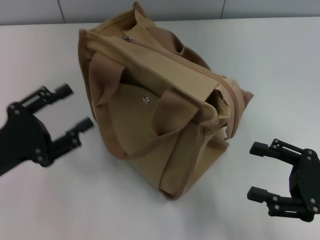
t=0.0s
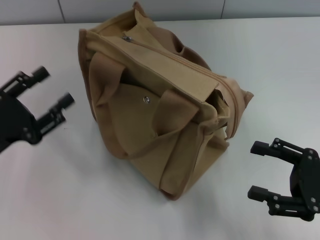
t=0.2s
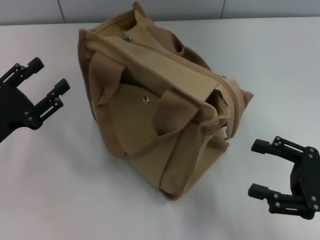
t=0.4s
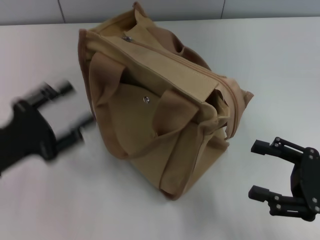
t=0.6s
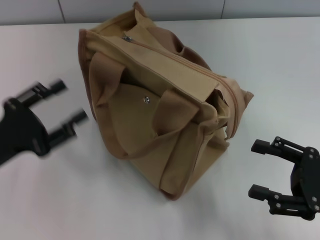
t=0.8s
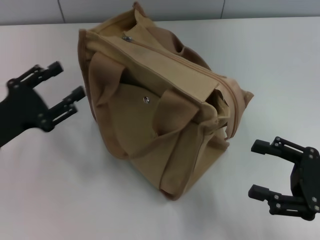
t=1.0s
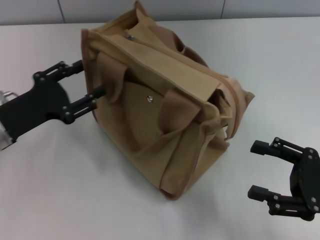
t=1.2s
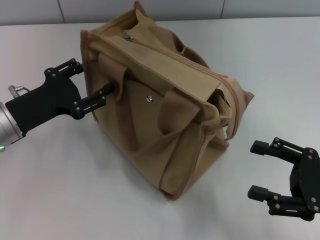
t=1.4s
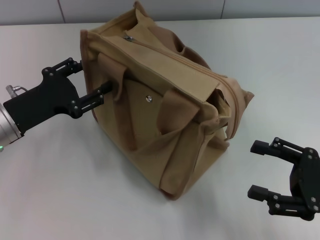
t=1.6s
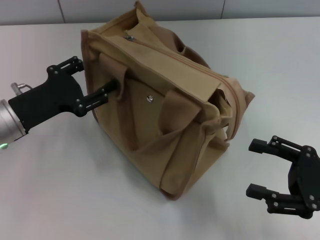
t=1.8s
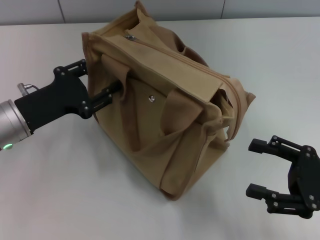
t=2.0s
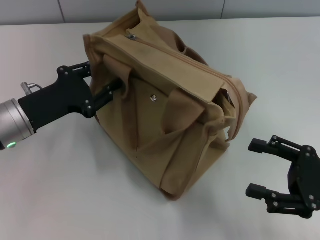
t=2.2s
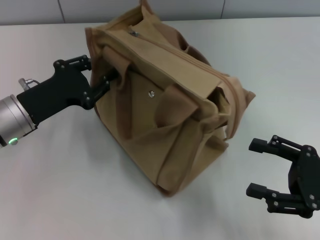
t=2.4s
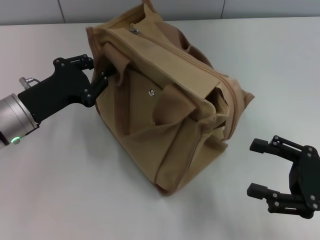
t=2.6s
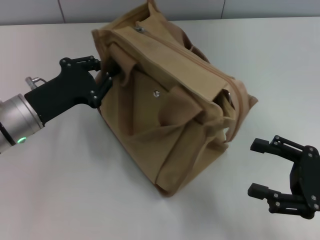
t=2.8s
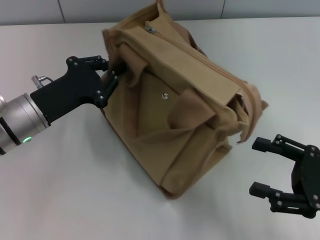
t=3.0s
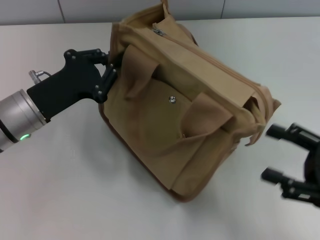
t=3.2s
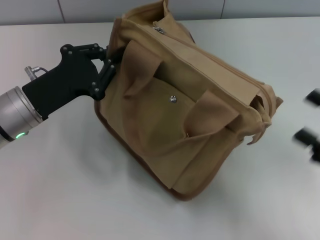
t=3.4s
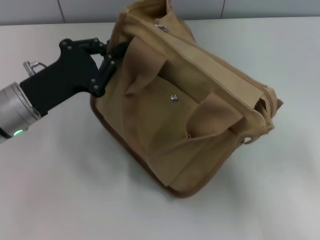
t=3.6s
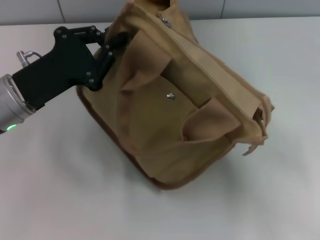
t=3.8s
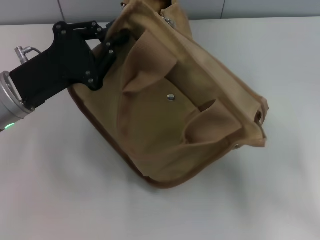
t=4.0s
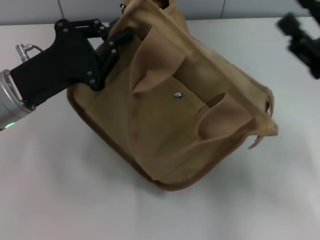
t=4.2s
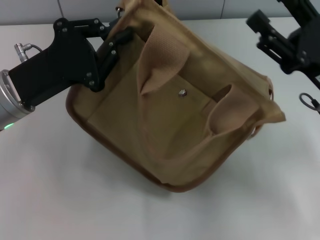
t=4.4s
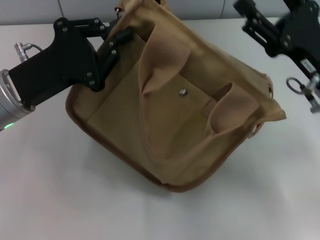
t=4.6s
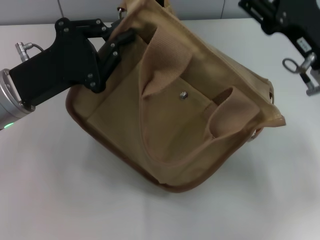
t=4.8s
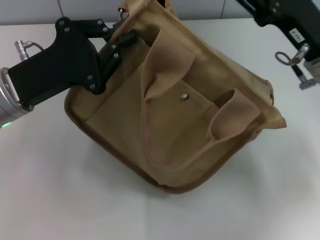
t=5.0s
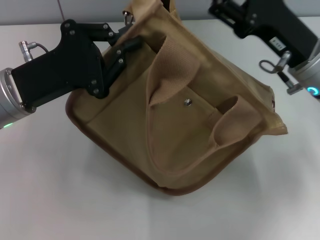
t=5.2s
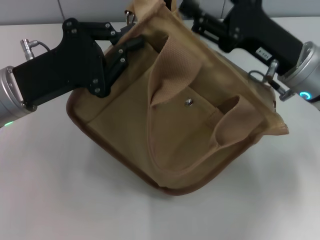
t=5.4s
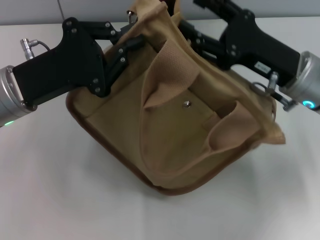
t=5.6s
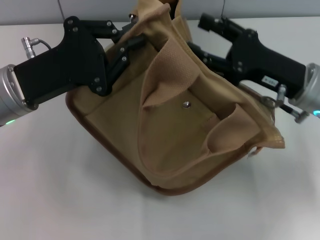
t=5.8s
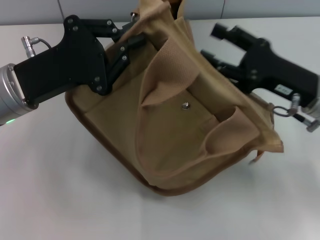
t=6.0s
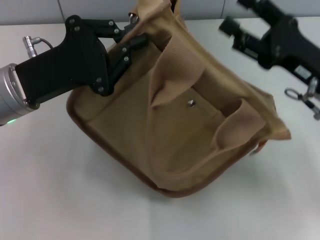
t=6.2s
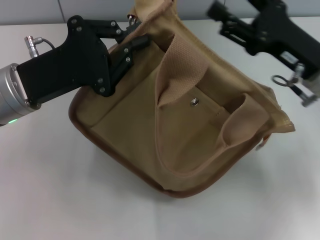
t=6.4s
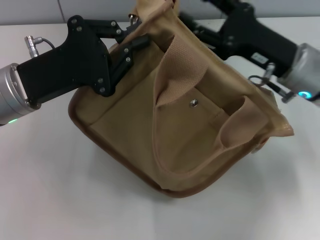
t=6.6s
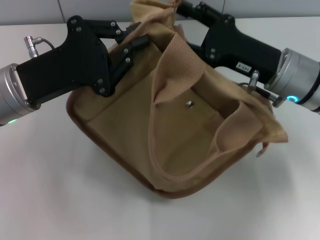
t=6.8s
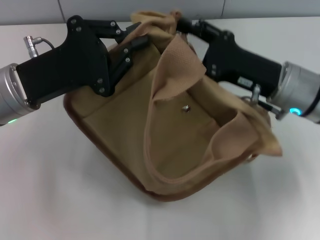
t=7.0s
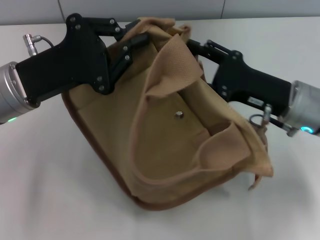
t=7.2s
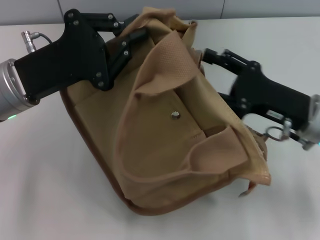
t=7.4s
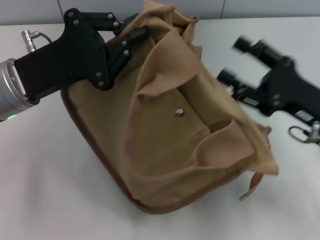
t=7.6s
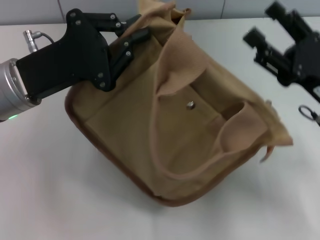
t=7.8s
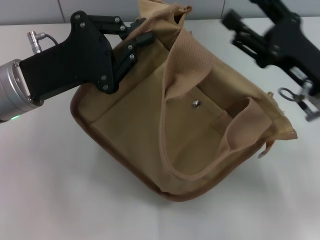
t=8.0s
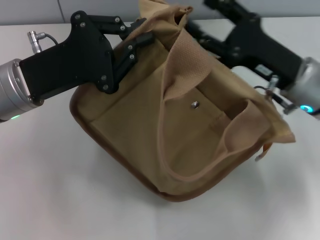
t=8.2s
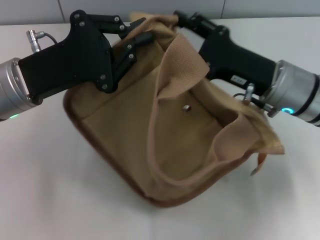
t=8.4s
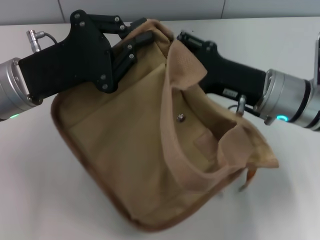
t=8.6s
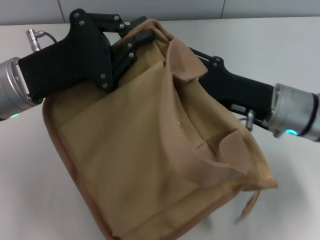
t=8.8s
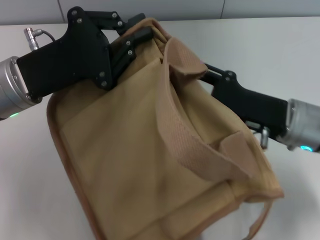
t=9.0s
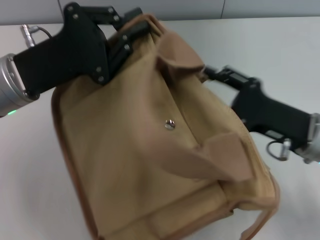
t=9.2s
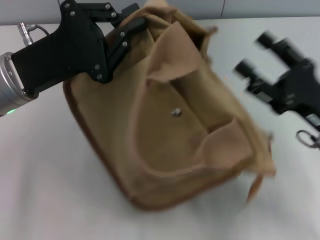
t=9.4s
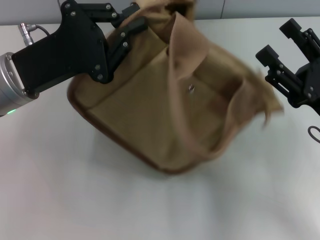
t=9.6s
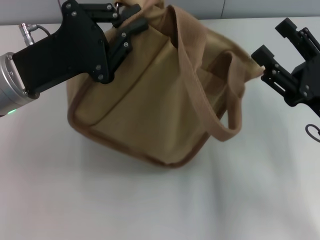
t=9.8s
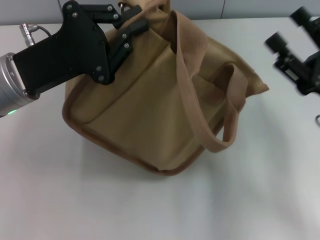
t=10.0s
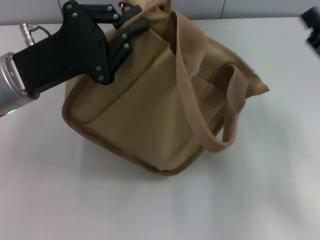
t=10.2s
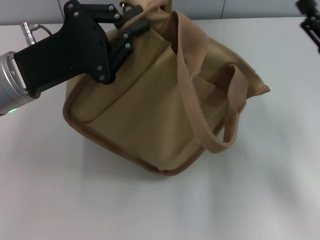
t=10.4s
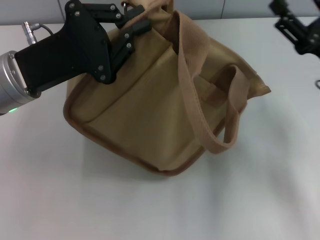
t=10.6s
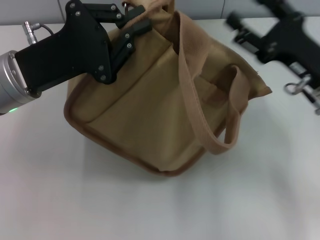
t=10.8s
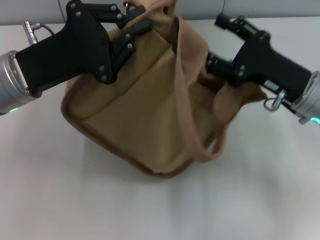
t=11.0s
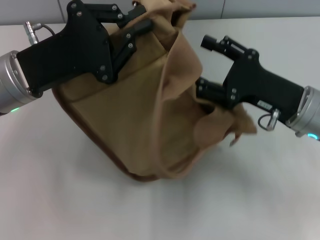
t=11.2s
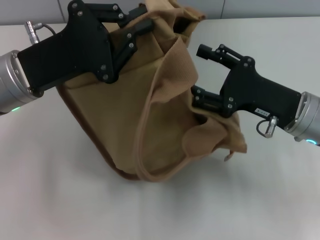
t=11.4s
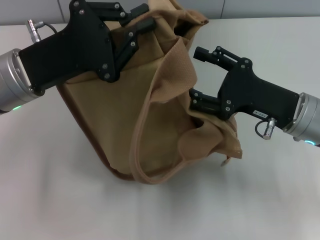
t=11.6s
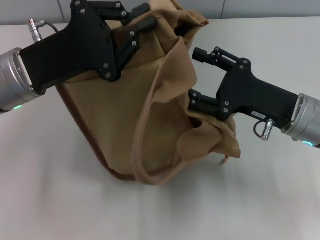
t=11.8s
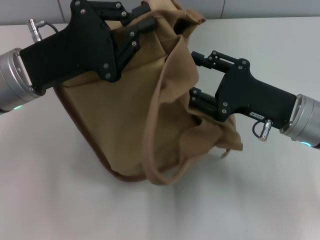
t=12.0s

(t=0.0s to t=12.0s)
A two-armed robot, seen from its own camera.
t=0.0s - t=1.6s: The left gripper moves forward, approximately 10 cm.
t=1.6s - t=3.0s: The left gripper closes its fingers.
t=3.0s - t=4.4s: The left gripper heads upward, covering some 5 cm. The right gripper moves forward and to the left, roughly 10 cm.
t=9.0s - t=10.4s: The right gripper shifts some 10 cm to the right.
t=10.4s - t=12.0s: The right gripper heads to the left, covering about 10 cm.

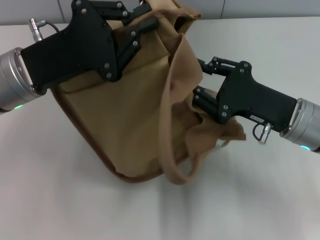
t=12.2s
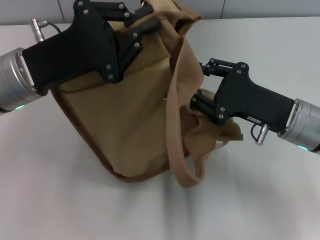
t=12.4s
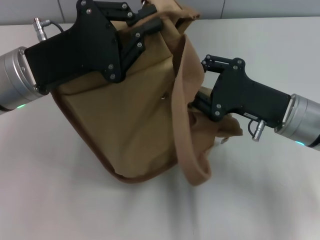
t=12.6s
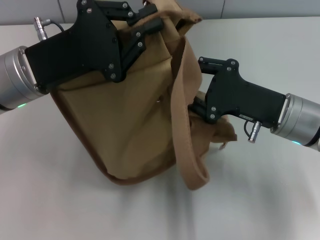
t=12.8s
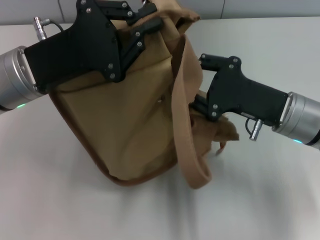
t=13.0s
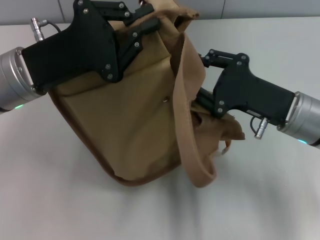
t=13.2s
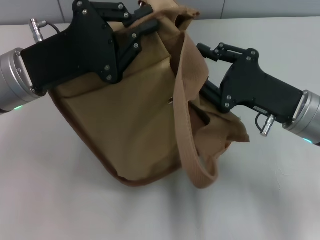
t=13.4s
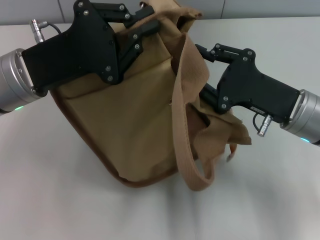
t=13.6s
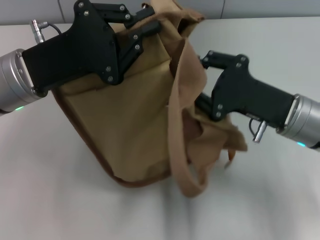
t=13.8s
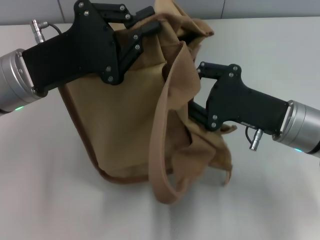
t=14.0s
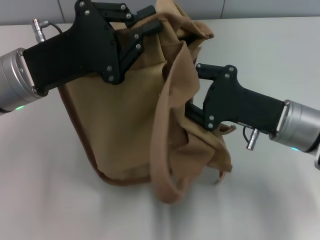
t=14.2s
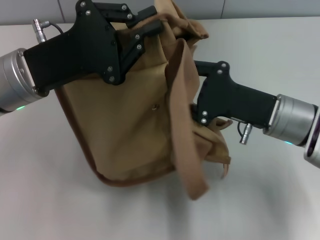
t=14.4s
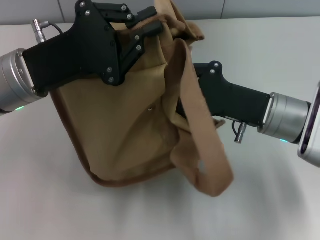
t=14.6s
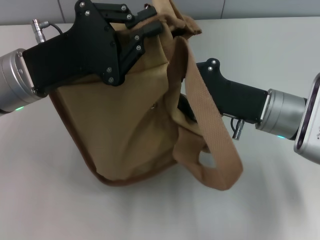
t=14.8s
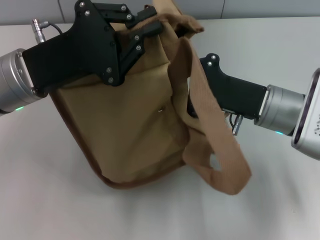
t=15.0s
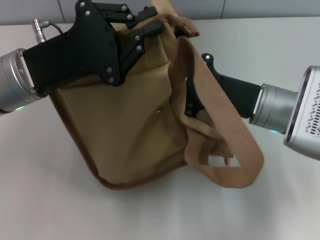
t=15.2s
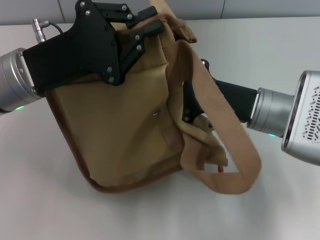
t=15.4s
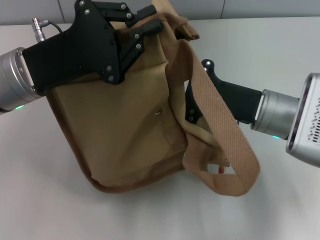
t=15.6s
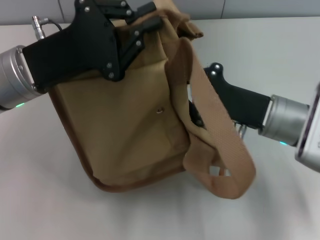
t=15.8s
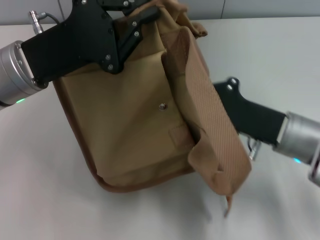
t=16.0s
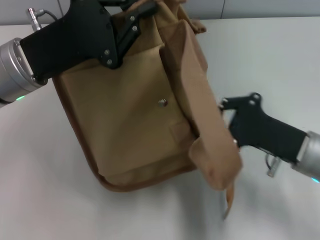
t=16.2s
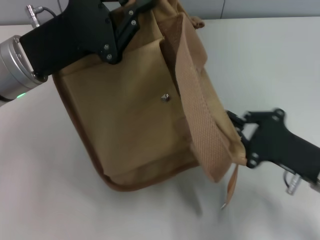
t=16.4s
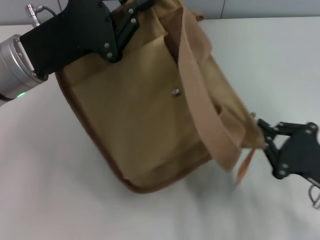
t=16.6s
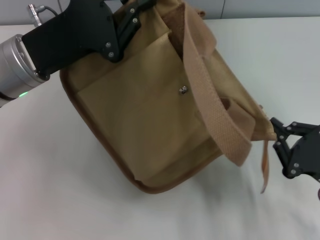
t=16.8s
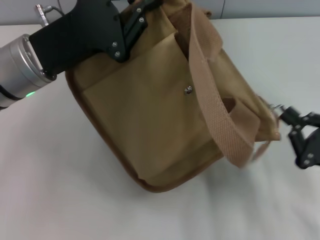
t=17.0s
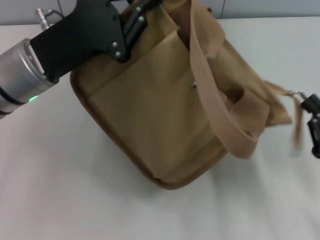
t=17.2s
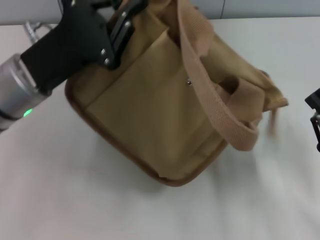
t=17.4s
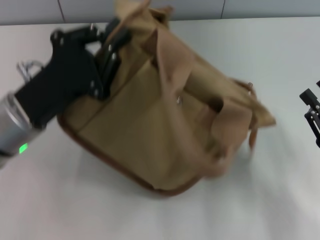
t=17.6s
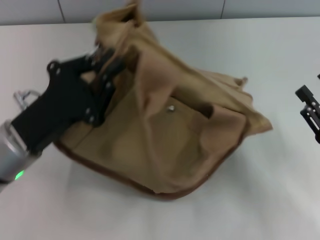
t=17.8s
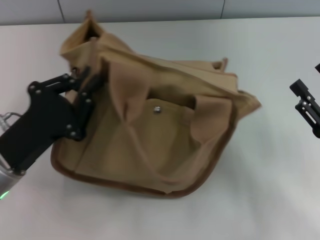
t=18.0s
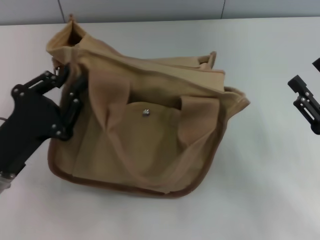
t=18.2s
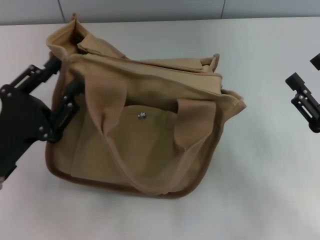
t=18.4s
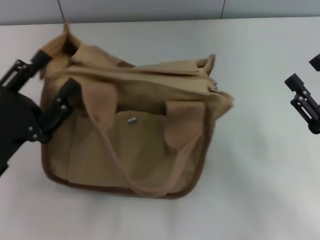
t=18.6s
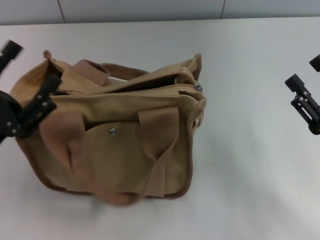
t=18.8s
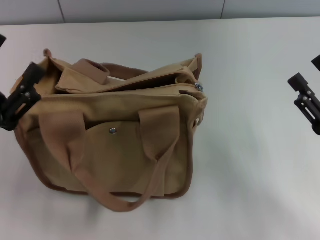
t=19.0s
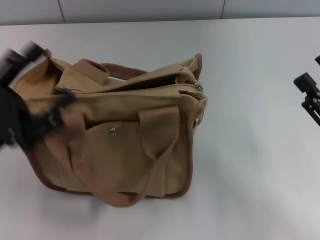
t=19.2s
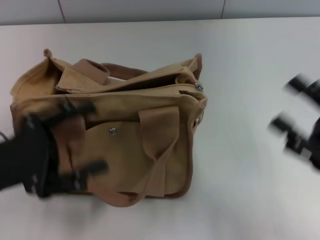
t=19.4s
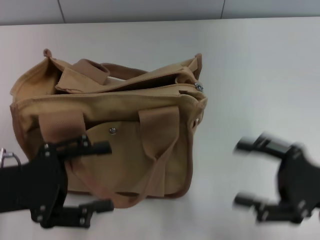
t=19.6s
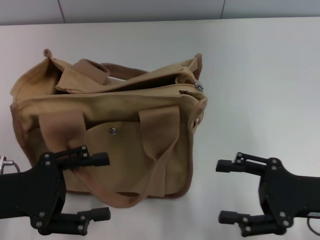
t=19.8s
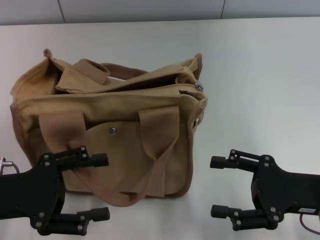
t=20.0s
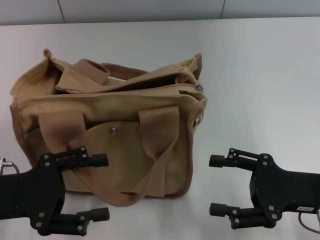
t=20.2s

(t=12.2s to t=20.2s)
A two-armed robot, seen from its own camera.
Step, t=12.2s - t=17.4s: Pull open the zipper with your right hand.
Step, t=17.6s - t=18.4s: Grab the bag with your left hand.
t=12.2s - t=13.8s: The grippers stay close to where they were, moving slightly.
t=15.4s - t=17.0s: The right gripper moves to the right and backward, some 20 cm.
t=17.0s - t=18.6s: The right gripper opens. Meanwhile the left gripper is displaced backward, downward and to the left by approximately 15 cm, and opens up.
t=18.6s - t=20.2s: The left gripper opens.

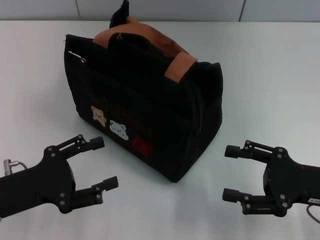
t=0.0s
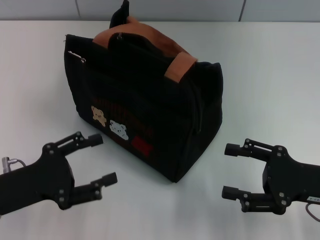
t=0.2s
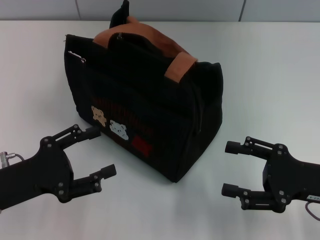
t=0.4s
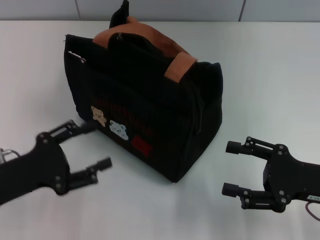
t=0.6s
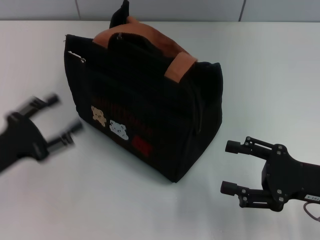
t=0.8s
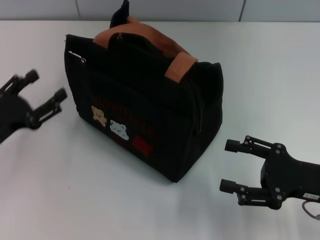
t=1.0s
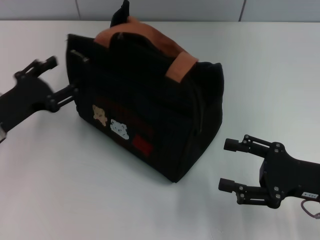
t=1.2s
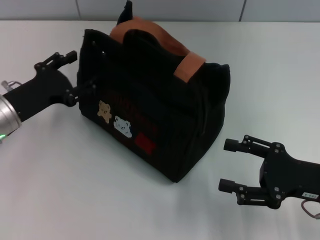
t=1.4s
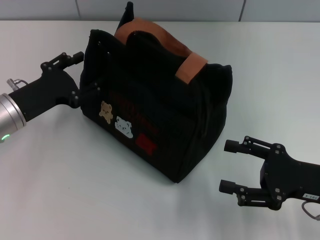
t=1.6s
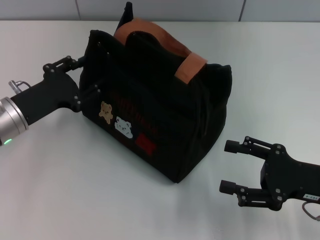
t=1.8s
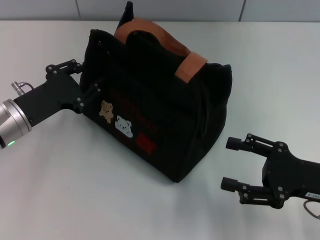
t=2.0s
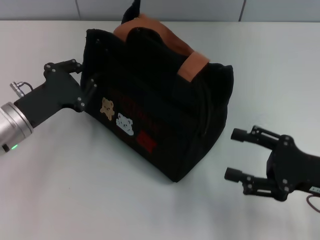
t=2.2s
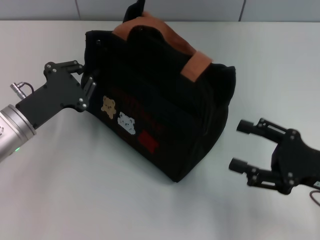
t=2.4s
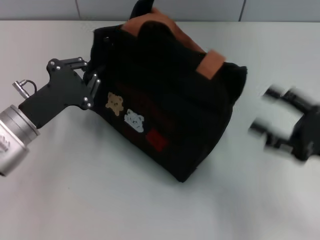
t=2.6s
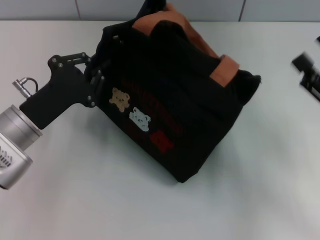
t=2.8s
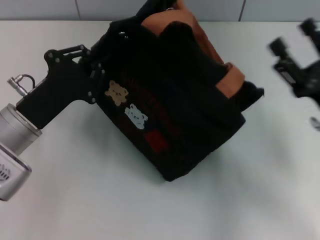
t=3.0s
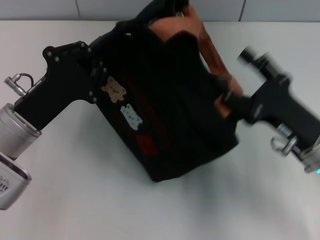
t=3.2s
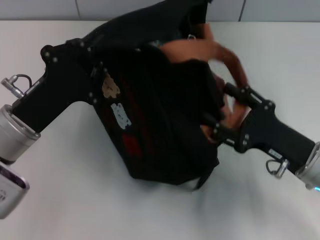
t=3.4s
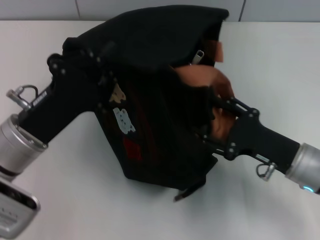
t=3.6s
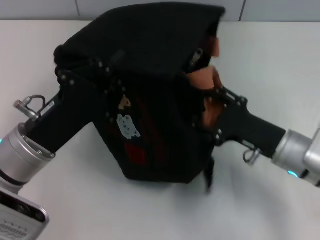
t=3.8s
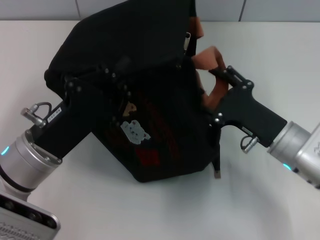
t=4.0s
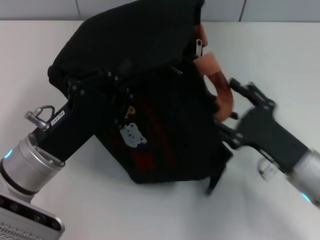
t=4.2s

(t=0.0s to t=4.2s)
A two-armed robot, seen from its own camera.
t=0.0s - t=1.4s: The left gripper moves forward, approximately 10 cm.
t=1.4s - t=2.8s: The left gripper closes up.
t=2.8s - t=4.2s: The left gripper shifts by approximately 5 cm. The right gripper is displaced to the left by some 10 cm.
